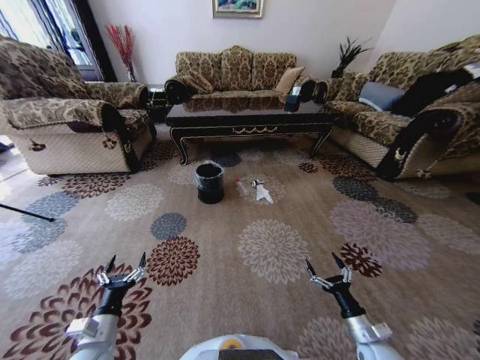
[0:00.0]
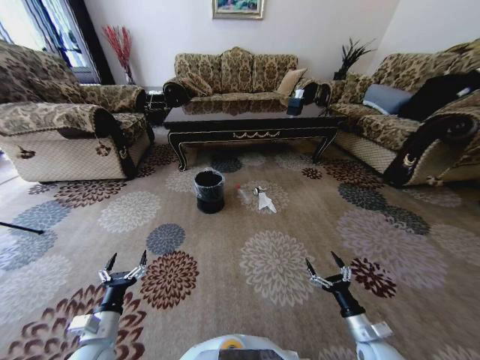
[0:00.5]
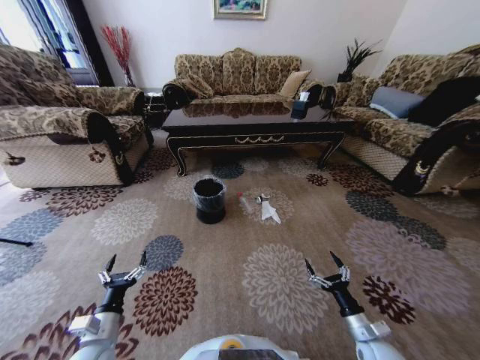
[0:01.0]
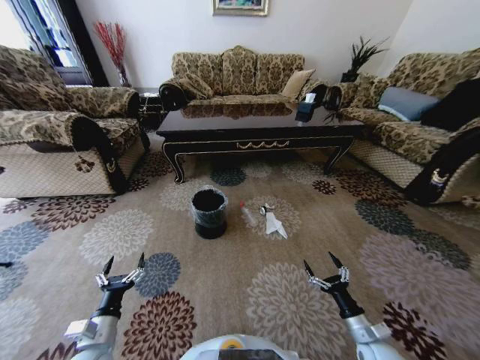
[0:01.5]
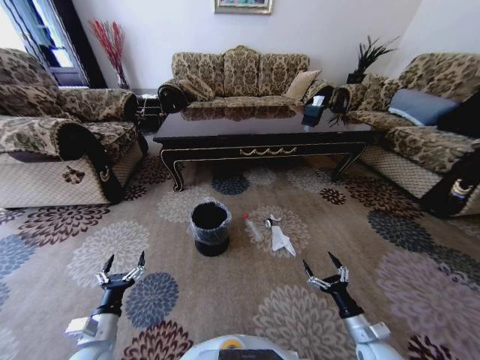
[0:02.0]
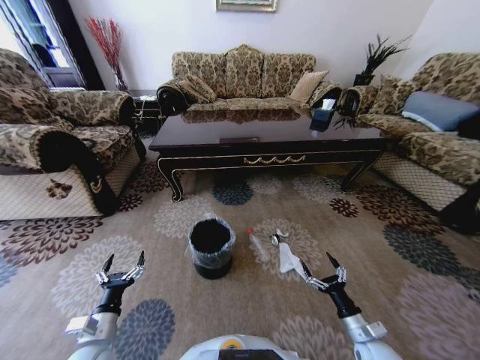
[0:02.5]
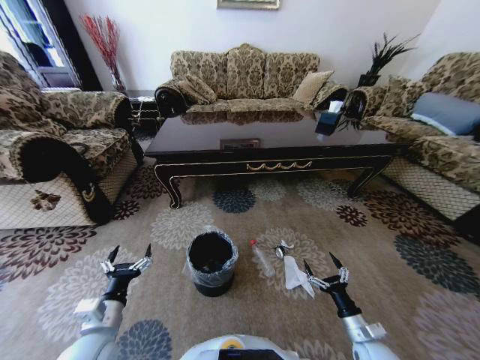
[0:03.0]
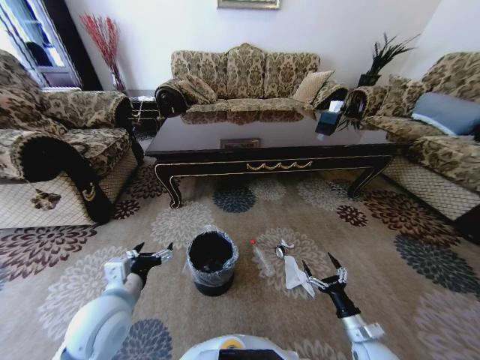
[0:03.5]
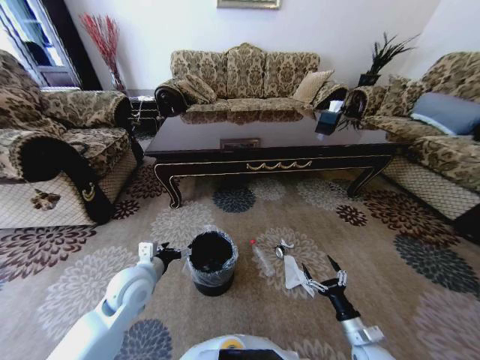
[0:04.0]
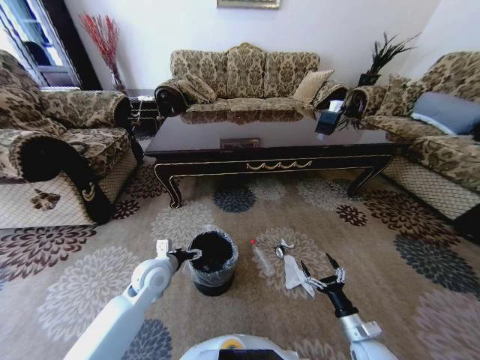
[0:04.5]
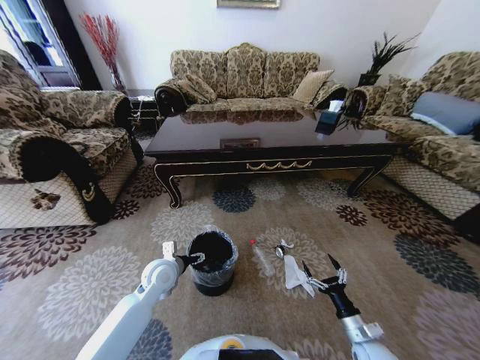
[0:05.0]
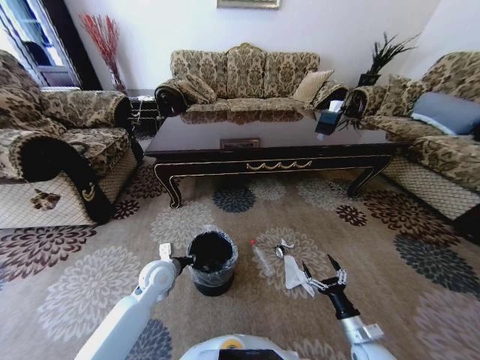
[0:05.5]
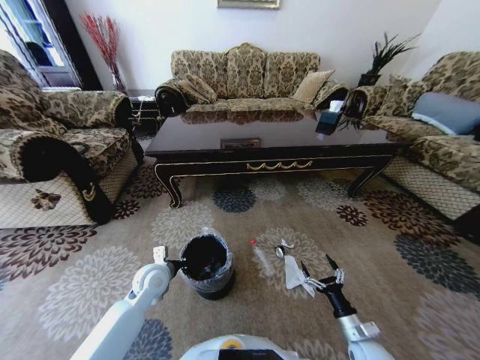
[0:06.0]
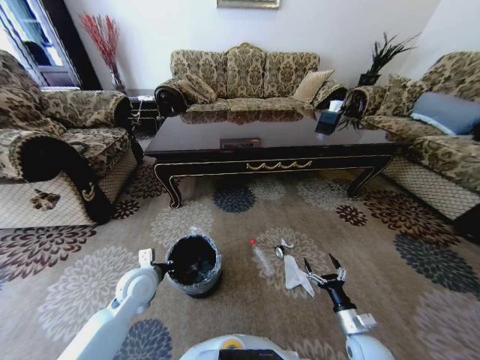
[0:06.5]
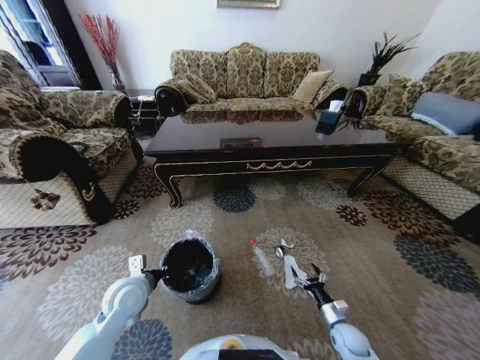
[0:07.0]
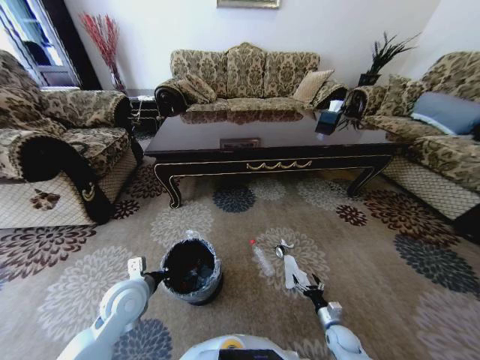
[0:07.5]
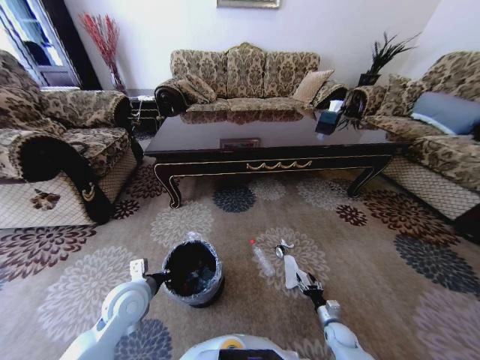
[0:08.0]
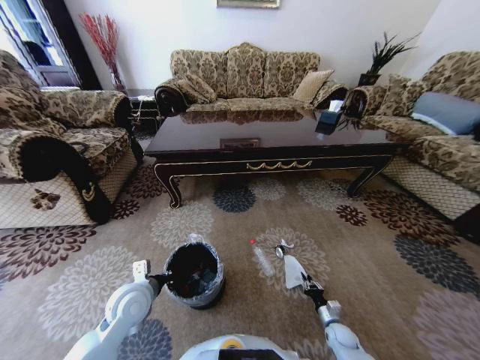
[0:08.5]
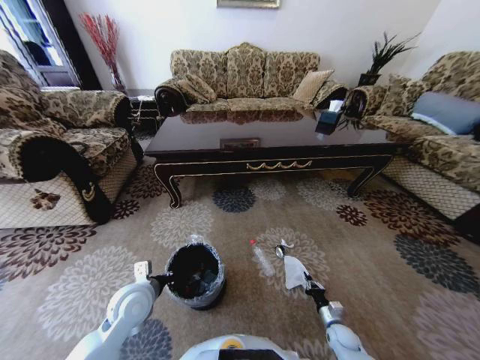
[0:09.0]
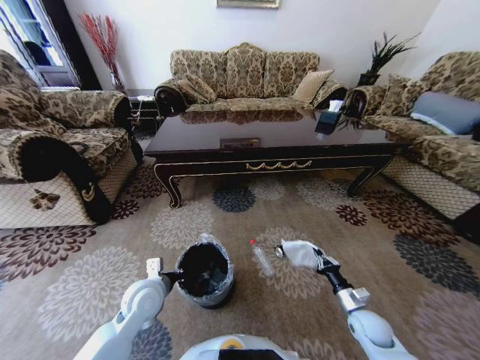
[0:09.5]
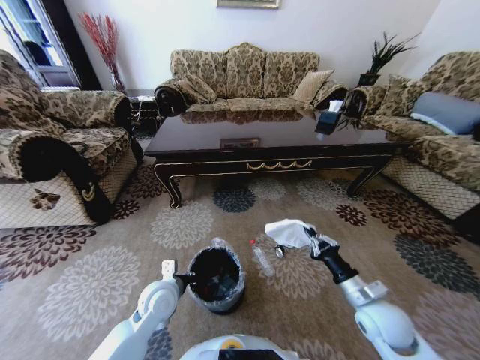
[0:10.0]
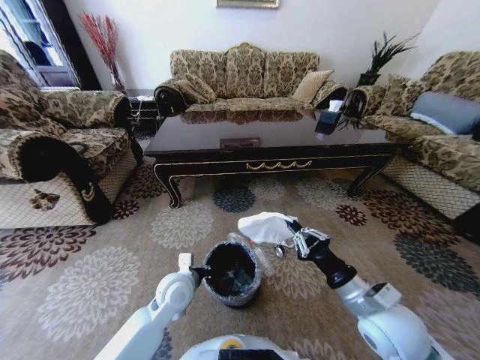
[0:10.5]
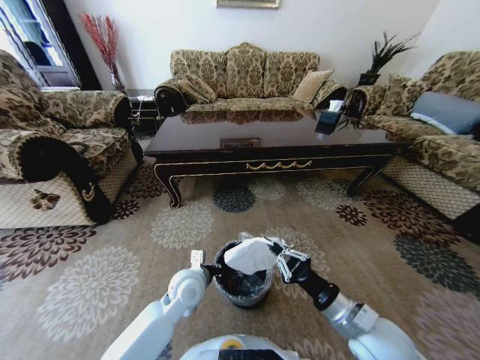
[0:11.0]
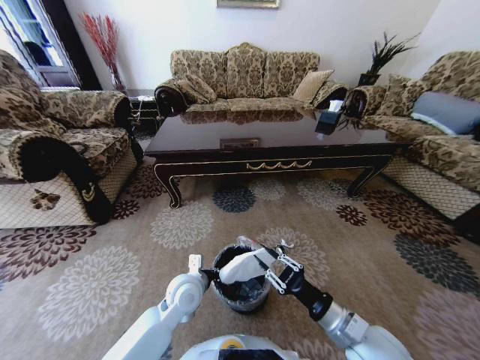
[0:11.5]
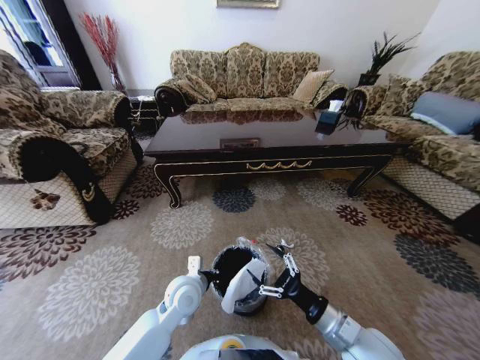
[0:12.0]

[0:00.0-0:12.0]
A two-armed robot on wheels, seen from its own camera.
Task of the whole recording: Move to the front of the table and pick up the trash from the floor, then place it into the trash bin.
0:02.0 to 0:04.0: The left gripper goes some 20 cm forward, upward and to the right.
0:04.0 to 0:06.0: The left gripper shifts about 10 cm downward, and closes.
0:06.0 to 0:08.0: The right gripper moves downward and forward, some 15 cm. Meanwhile the left gripper is displaced backward by roughly 5 cm.
0:08.0 to 0:10.0: The left gripper is displaced to the right by roughly 5 cm. Meanwhile the right gripper shifts about 30 cm upward, and closes.
0:10.0 to 0:12.0: The right gripper heads to the left and backward, covering roughly 10 cm, and opens up. The left gripper is displaced to the right by some 5 cm.

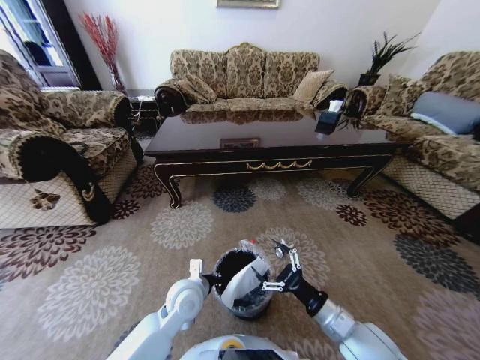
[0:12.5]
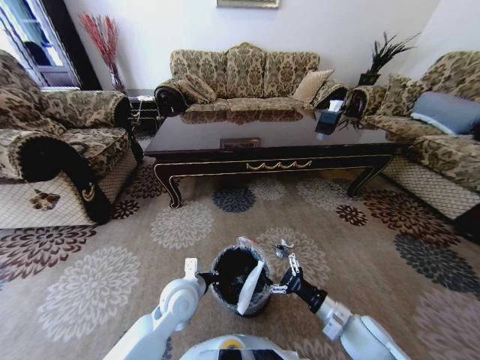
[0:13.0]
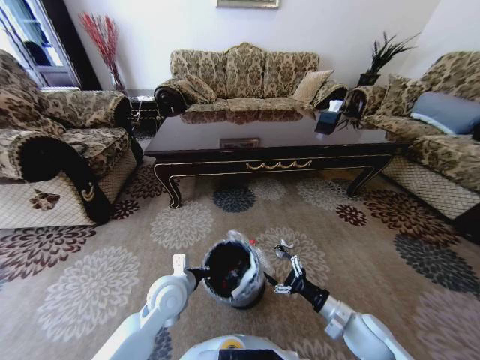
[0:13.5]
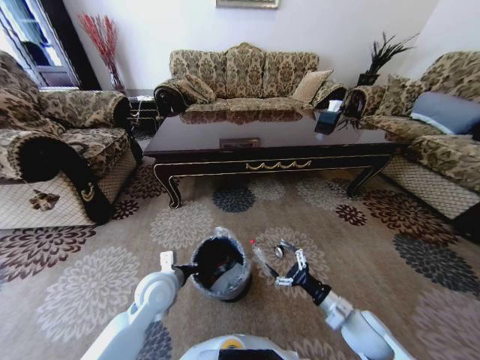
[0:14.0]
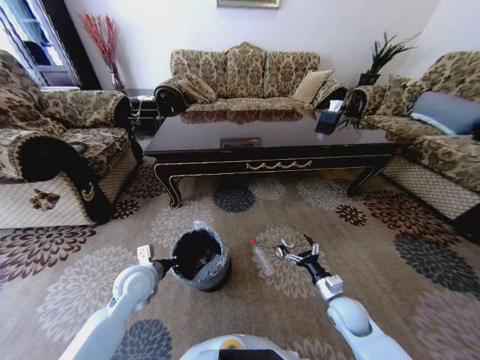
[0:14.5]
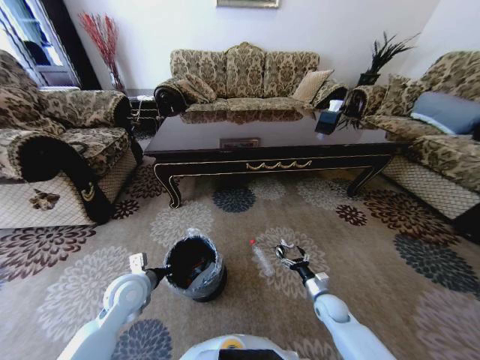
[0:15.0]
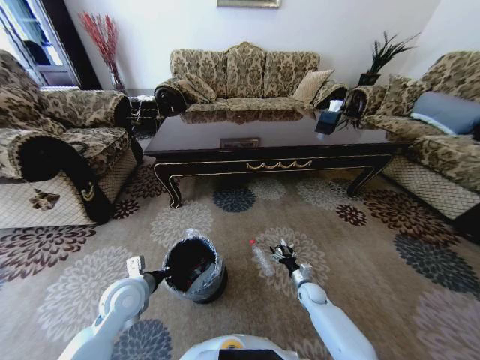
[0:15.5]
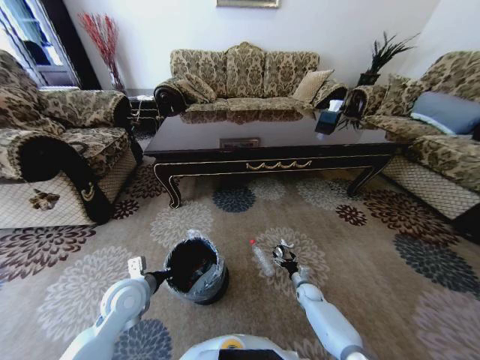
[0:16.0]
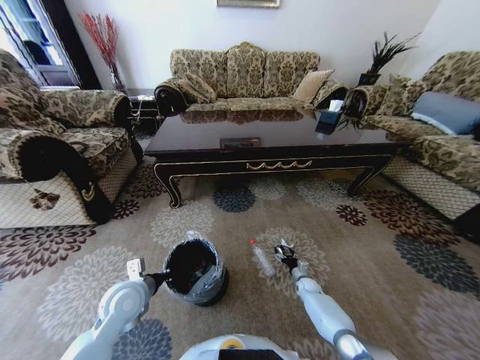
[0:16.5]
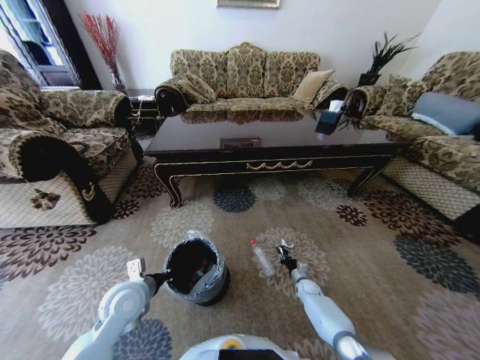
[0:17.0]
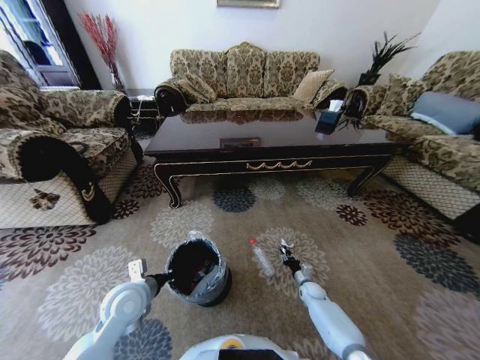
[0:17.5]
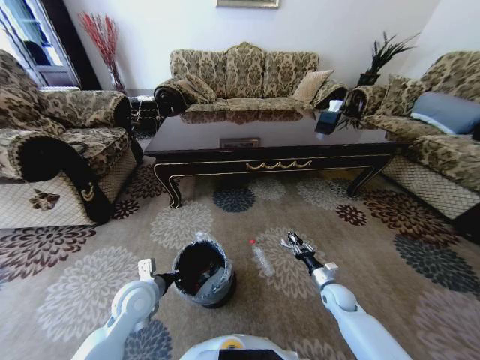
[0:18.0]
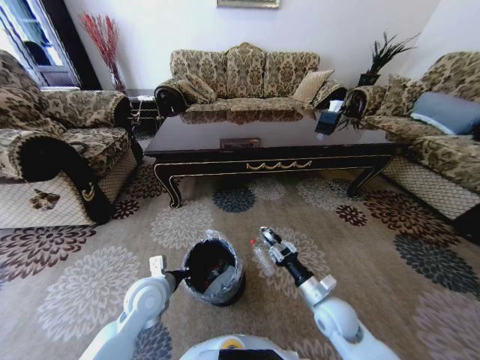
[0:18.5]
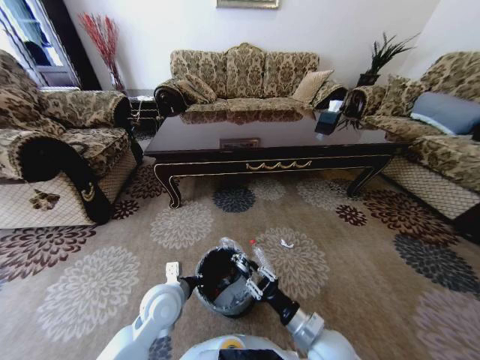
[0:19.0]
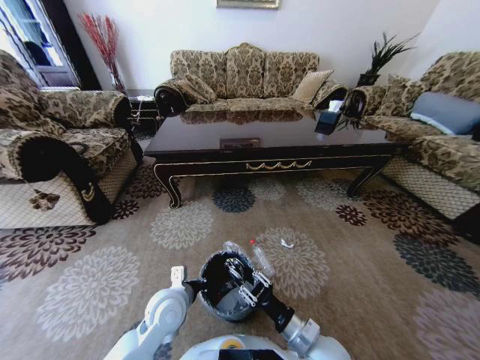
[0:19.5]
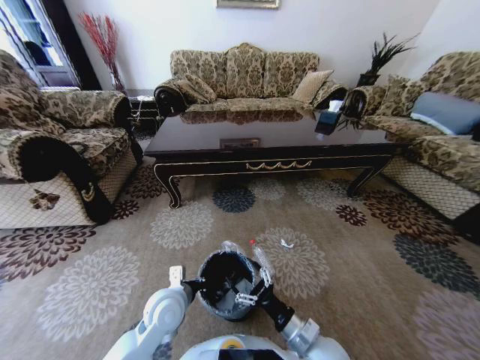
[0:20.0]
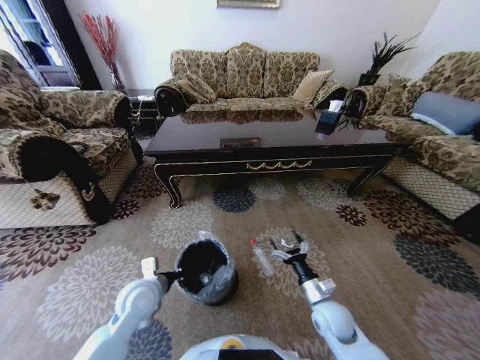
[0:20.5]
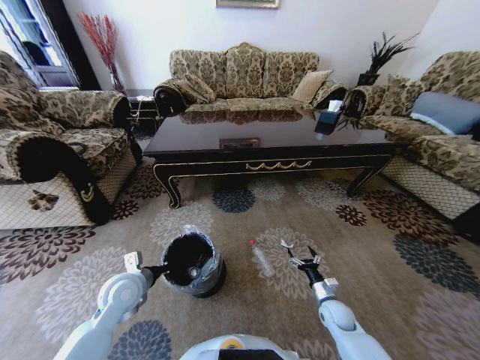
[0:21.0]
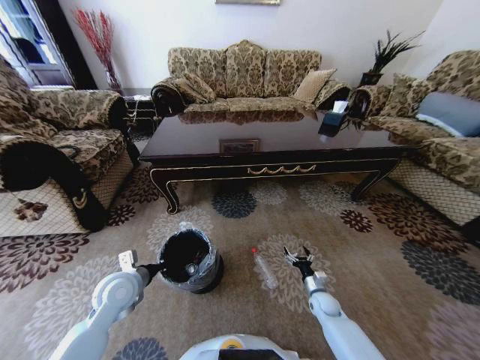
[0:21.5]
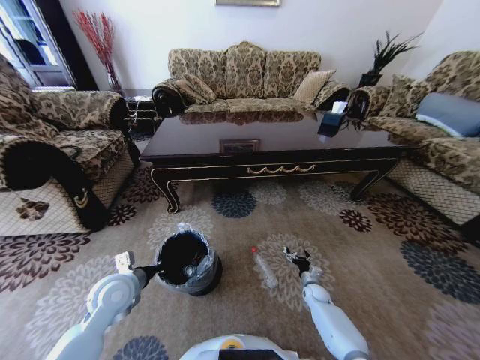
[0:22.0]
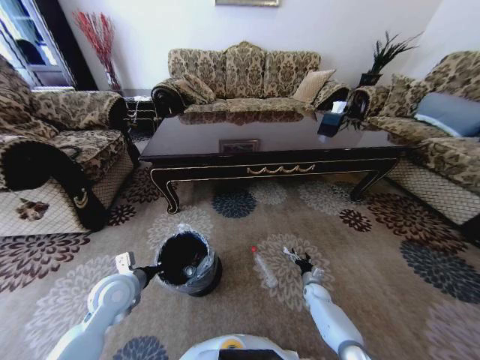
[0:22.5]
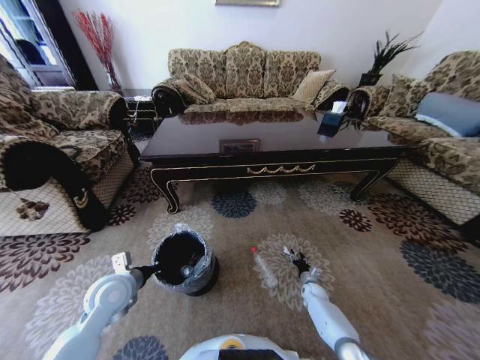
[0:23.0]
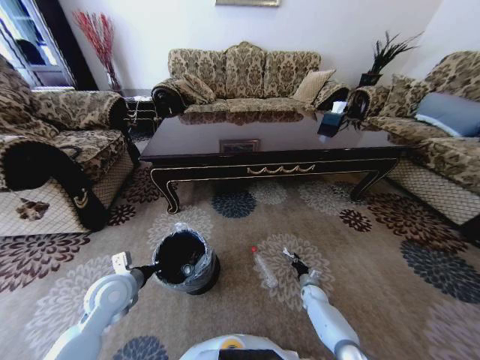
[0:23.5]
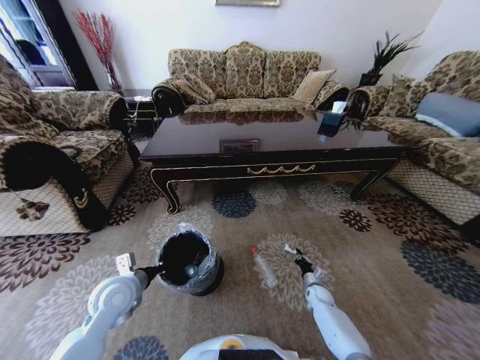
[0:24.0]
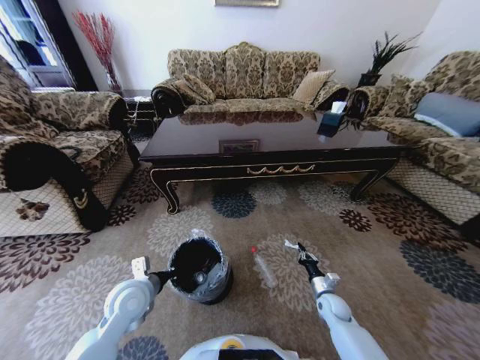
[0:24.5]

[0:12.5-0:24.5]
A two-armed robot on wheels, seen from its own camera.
Task of the whole recording: Move to the front of the table and pick up the trash from the floor, then place it into the trash bin.
0:12.5 to 0:14.5: The left gripper heads to the left, covering roughly 15 cm, while the right gripper heads downward, forward and to the right, covering some 15 cm.
0:14.5 to 0:16.5: The right gripper heads downward and forward, covering some 25 cm.
0:16.5 to 0:18.5: The right gripper heads upward and backward, covering roughly 25 cm, and closes up.
0:18.5 to 0:20.5: The right gripper reaches roughly 10 cm backward, then returns, and opens up.
0:20.5 to 0:22.5: The left gripper goes roughly 5 cm to the left. Meanwhile the right gripper shifts roughly 25 cm downward, forward and to the right.
0:22.5 to 0:24.5: The right gripper moves upward and backward, about 10 cm, and closes up.

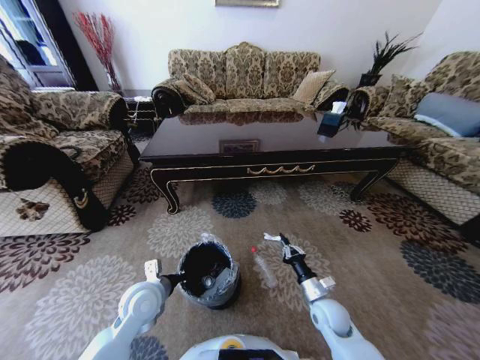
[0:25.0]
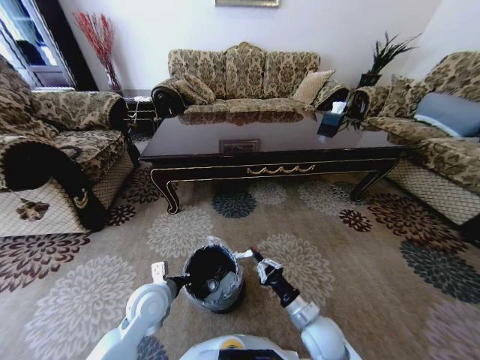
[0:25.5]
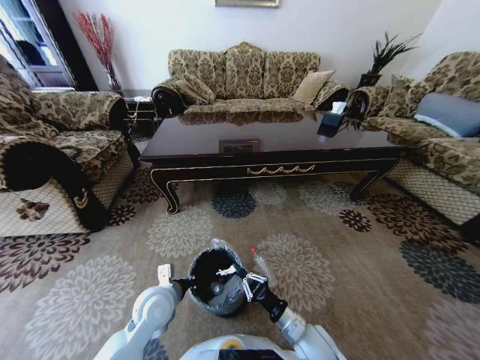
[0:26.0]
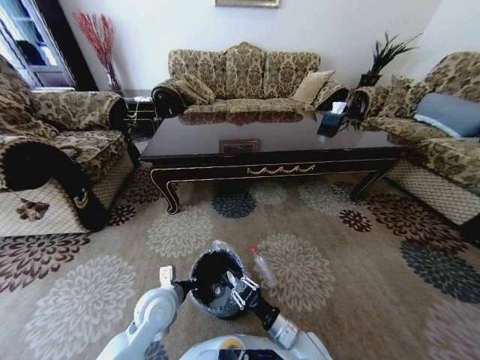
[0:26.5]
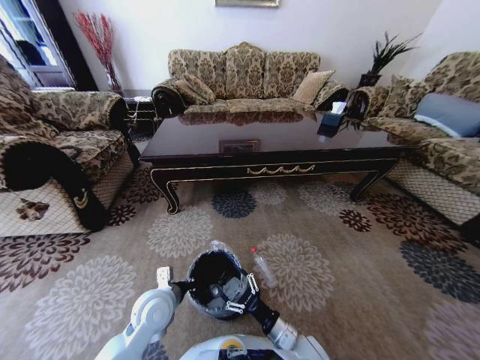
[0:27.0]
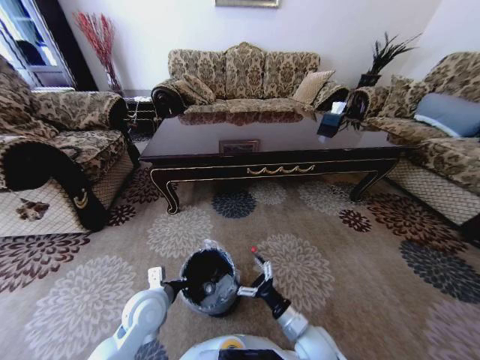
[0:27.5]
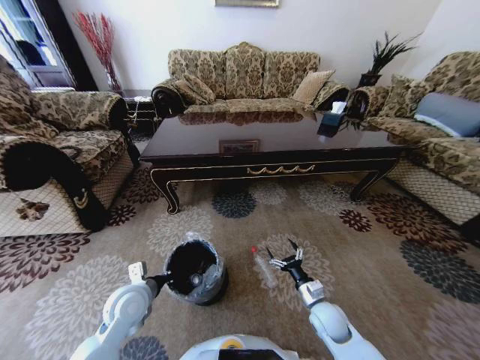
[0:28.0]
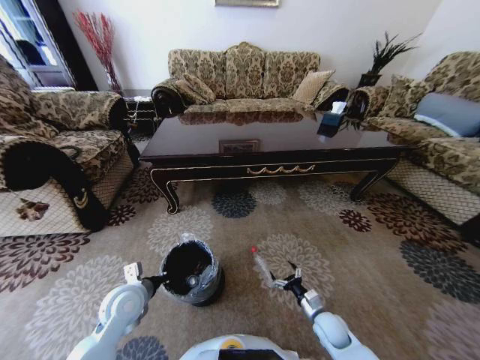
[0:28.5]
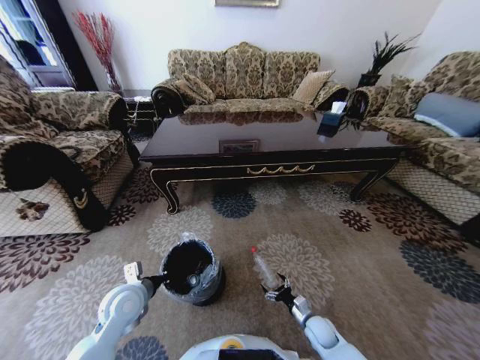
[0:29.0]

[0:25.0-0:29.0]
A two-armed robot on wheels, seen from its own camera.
Task of the whole recording: Move to the front of the table and pick up the trash from the floor, then place it into the trash bin.
0:25.0 to 0:27.0: The right gripper goes roughly 15 cm to the left and backward, and opens.
0:27.0 to 0:29.0: The left gripper heads to the left, covering approximately 10 cm; the right gripper heads downward, to the right and forward, covering roughly 20 cm.
